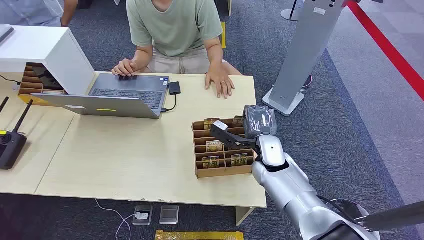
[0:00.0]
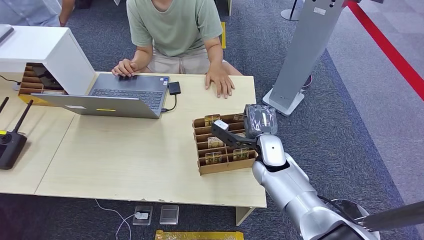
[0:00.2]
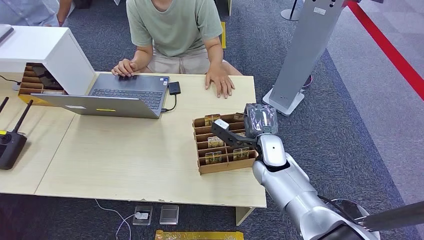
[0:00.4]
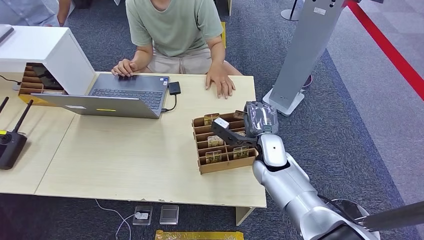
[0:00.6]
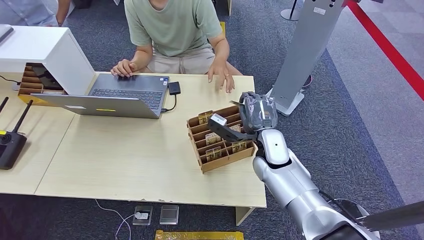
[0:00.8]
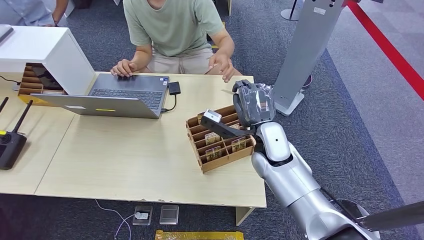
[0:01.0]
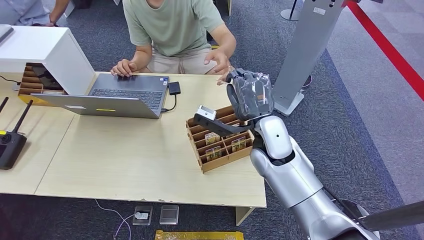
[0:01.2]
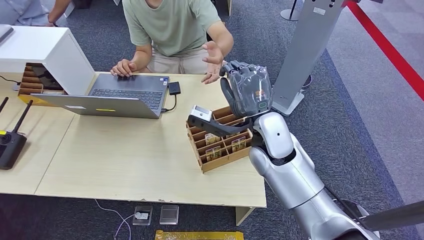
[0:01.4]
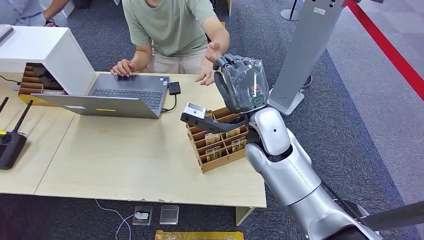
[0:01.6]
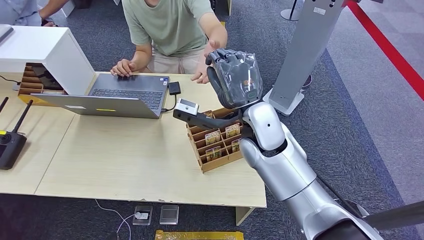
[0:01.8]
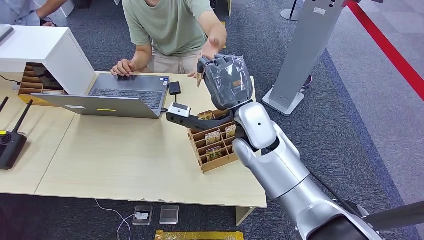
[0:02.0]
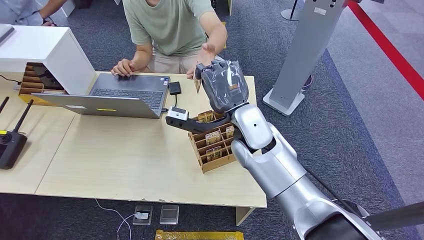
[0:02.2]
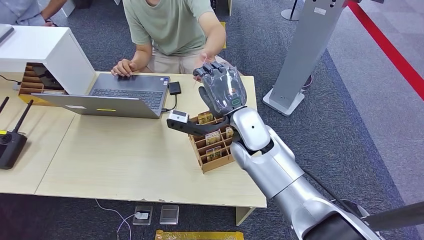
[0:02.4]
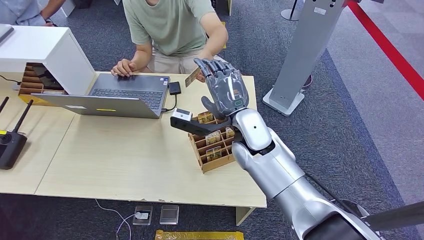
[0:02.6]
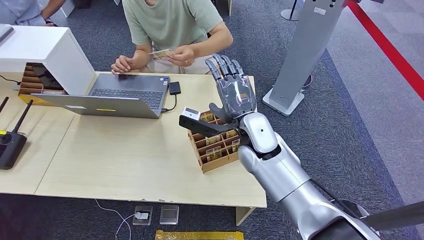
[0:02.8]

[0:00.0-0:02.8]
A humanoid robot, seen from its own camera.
Step, 0:00.0 to 0:00.8: Pick up the room card from the card holder.
Step, 0:01.4 to 0:02.8: Hand the room card to the target.
0:01.4 to 0:02.8: The hands make only small movements.
